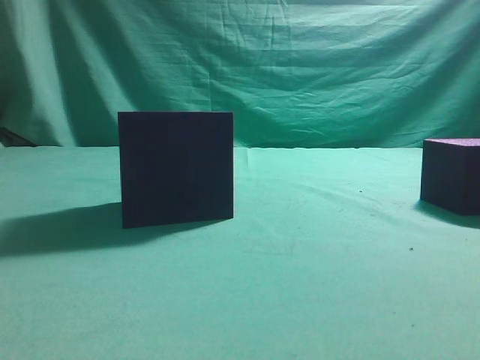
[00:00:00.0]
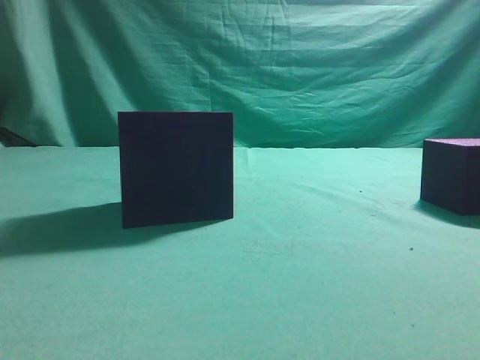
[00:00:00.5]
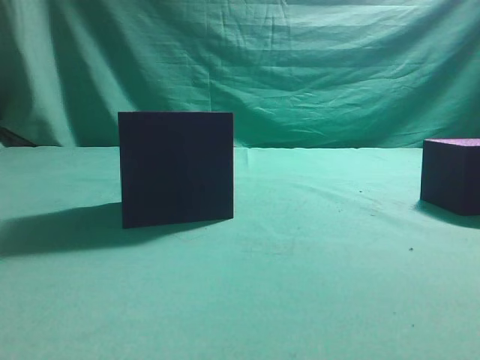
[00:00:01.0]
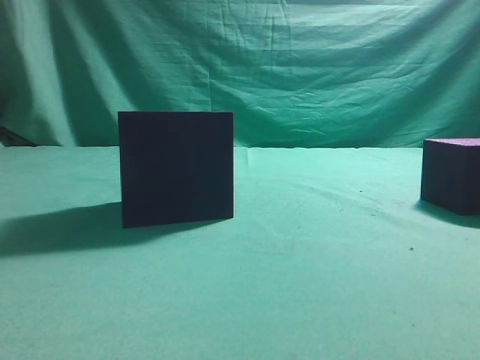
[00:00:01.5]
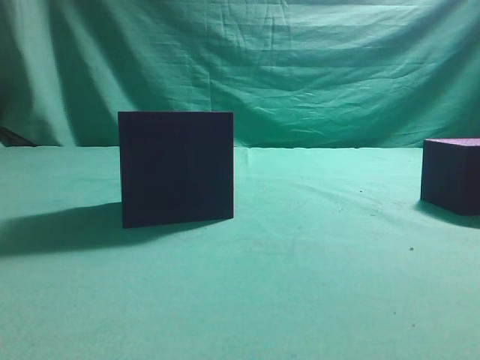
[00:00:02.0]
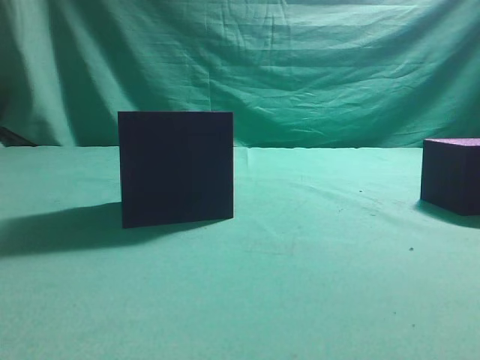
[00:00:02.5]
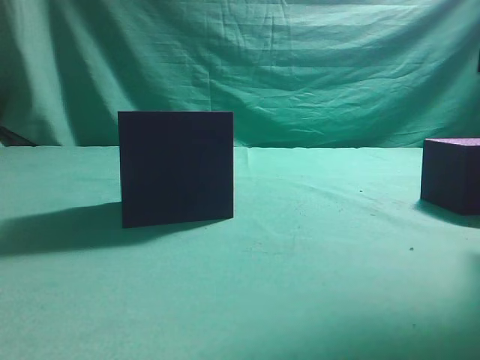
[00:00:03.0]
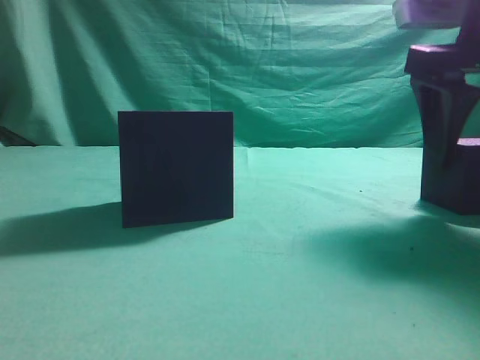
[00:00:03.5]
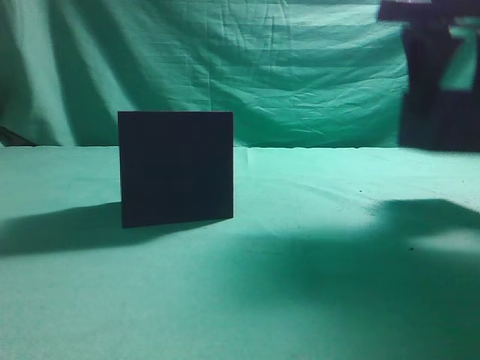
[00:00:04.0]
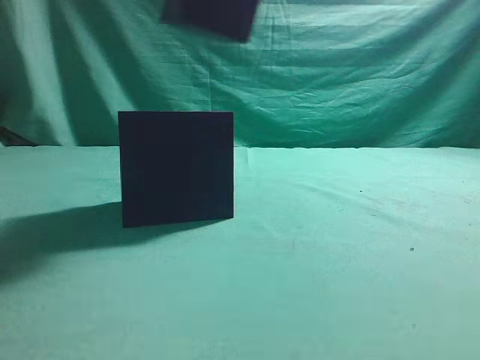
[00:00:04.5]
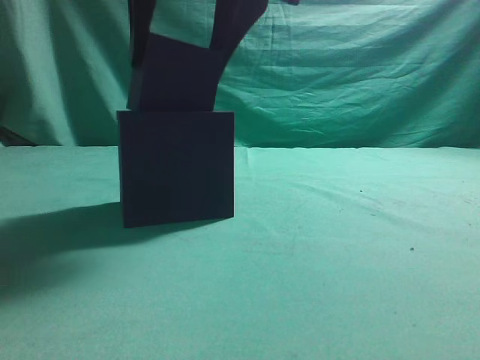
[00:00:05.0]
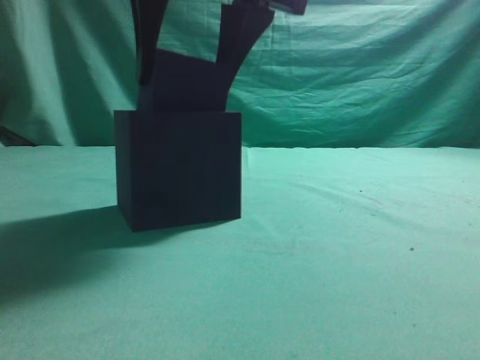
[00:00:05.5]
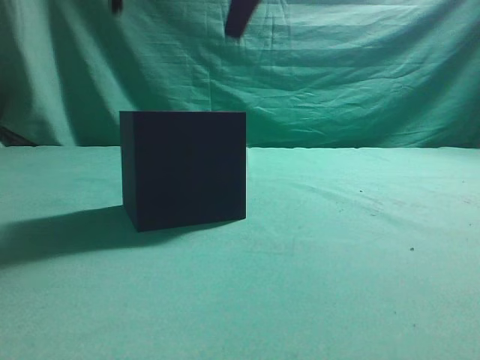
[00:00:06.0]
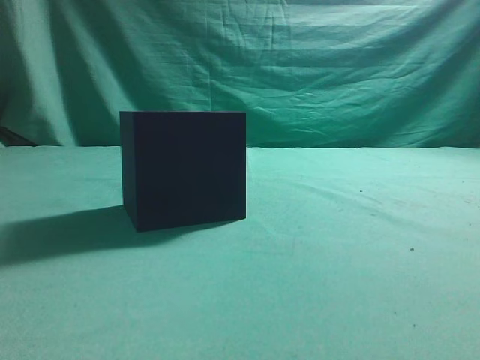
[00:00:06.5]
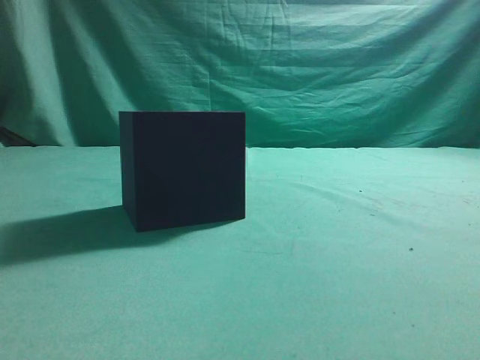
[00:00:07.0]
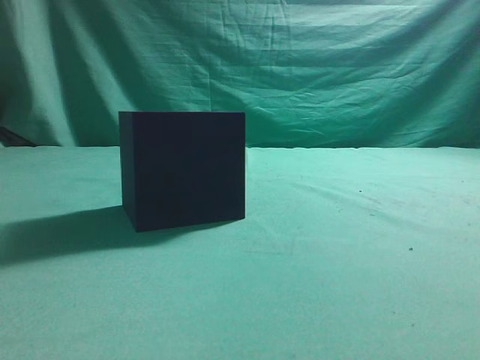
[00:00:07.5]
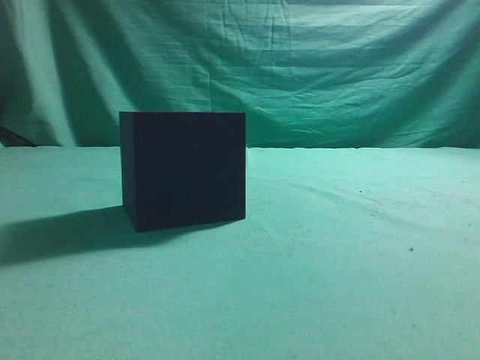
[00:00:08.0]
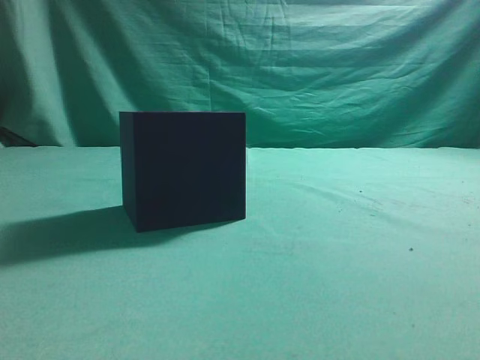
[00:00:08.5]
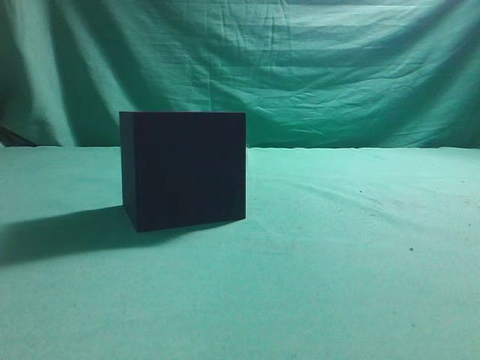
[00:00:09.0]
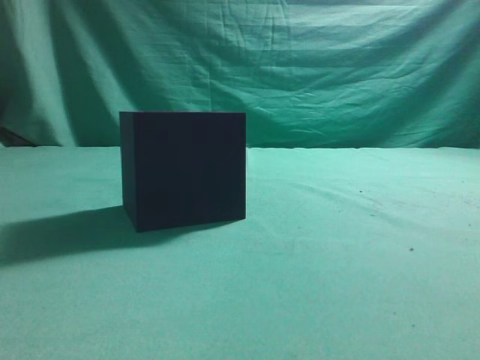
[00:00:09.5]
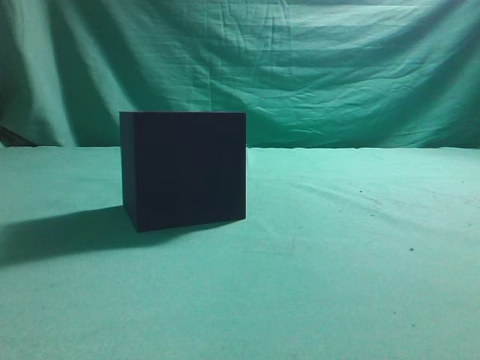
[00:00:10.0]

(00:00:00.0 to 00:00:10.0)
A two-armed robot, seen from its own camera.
Task of the whole recording: pick up the cube block and place it into the cube groove.
Step, 00:00:00.0 - 00:00:03.5: Grasp the cube.
Step, 00:00:04.5 - 00:00:05.5: Place cube into the cube-shaped recess.
00:00:02.0 - 00:00:04.0: The right gripper travels forward and to the left by about 25 cm, and opens.
00:00:04.0 - 00:00:06.0: The right gripper is displaced to the left by about 20 cm.
